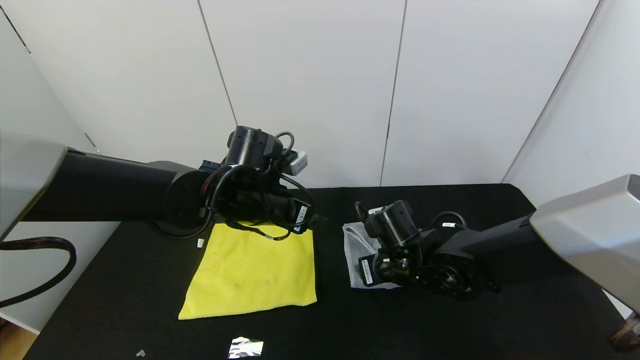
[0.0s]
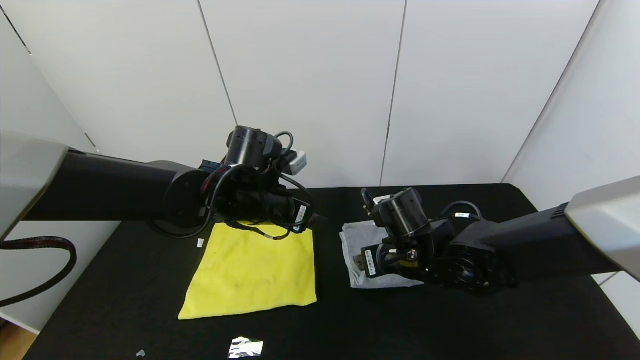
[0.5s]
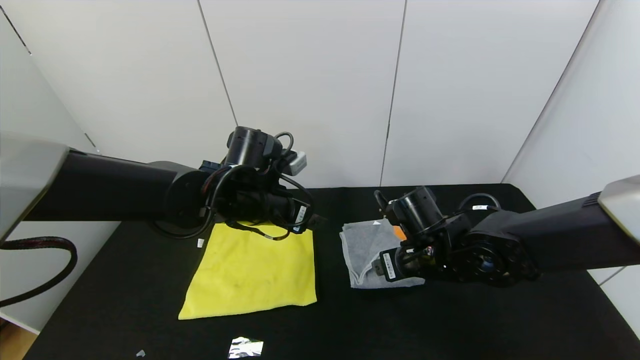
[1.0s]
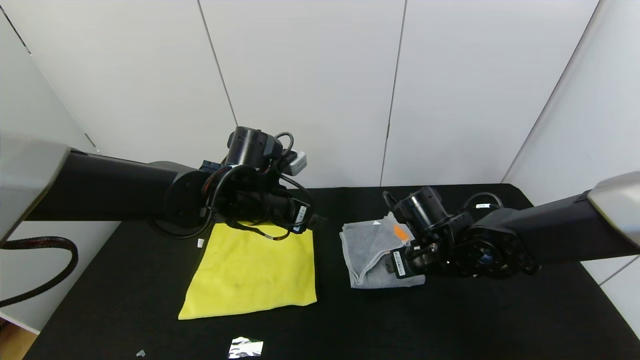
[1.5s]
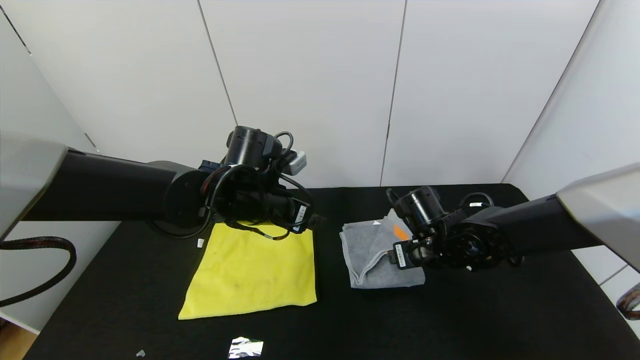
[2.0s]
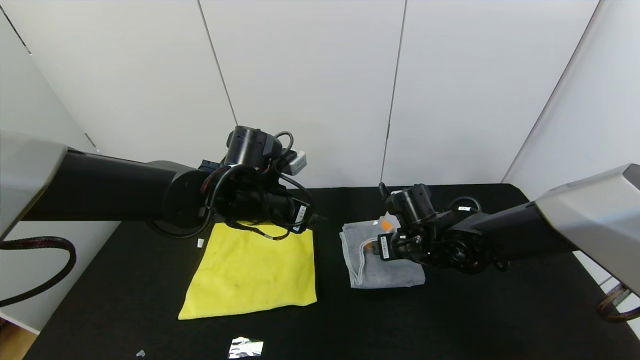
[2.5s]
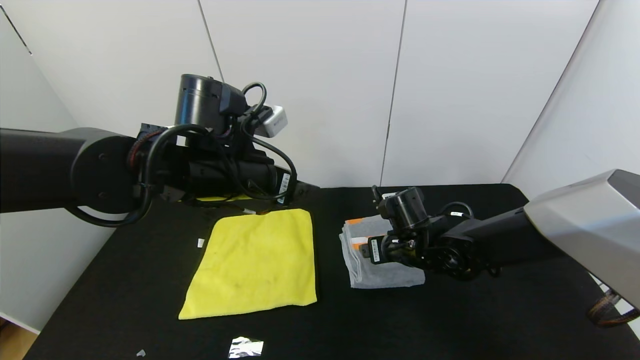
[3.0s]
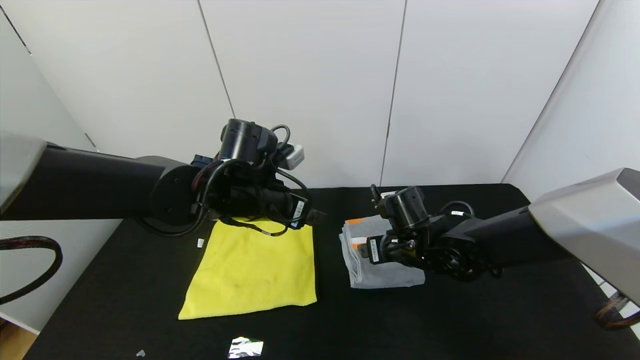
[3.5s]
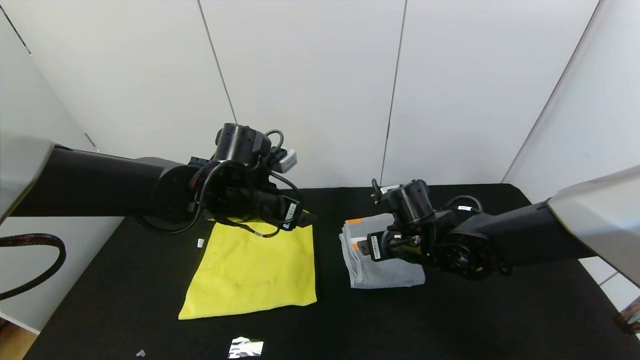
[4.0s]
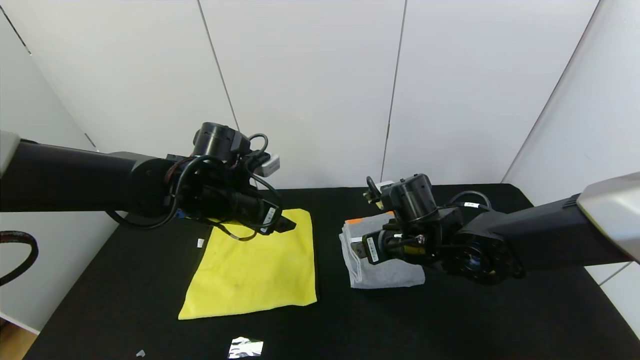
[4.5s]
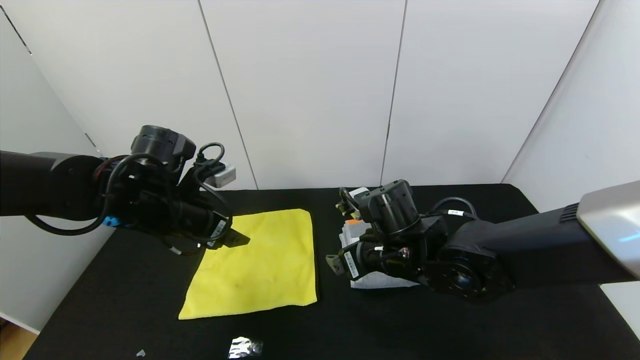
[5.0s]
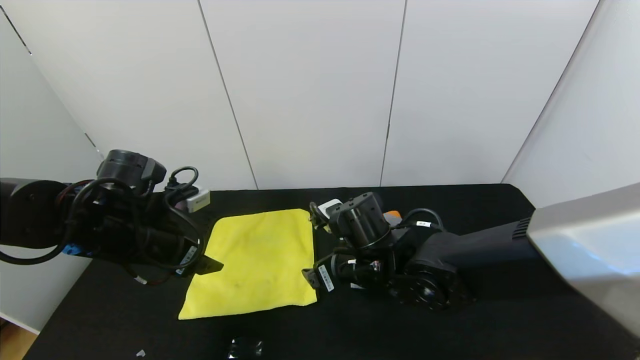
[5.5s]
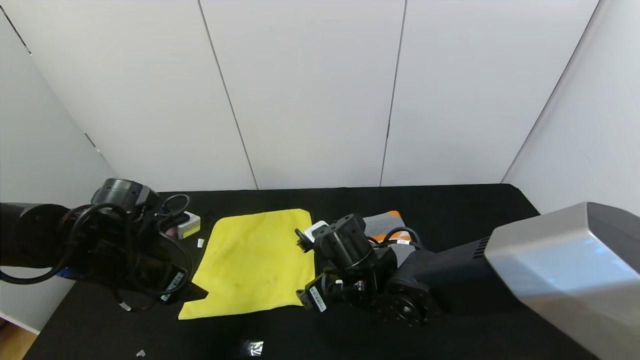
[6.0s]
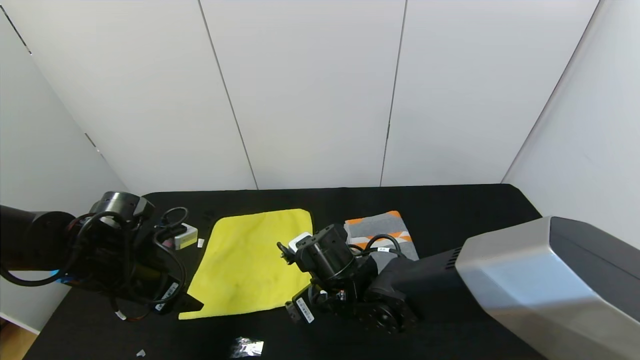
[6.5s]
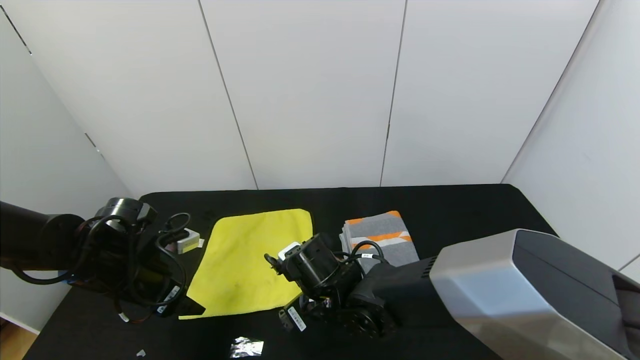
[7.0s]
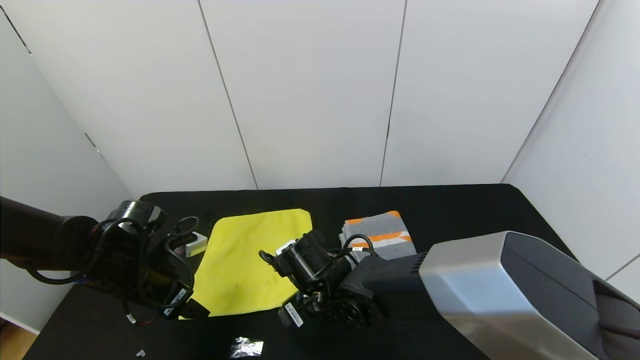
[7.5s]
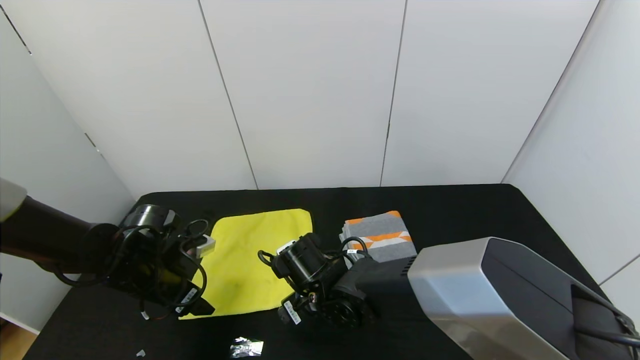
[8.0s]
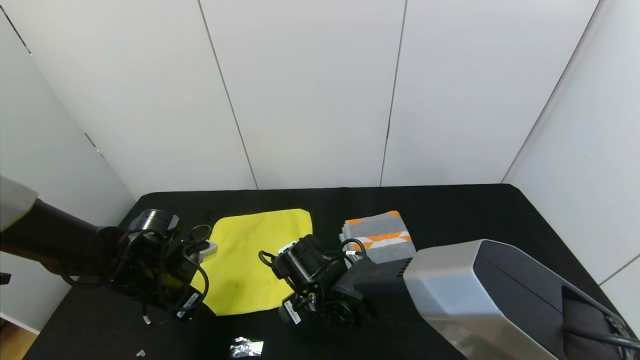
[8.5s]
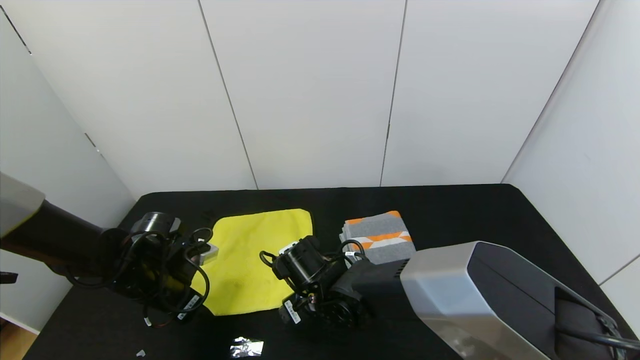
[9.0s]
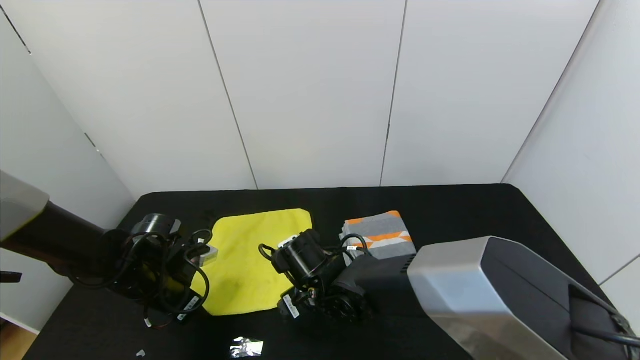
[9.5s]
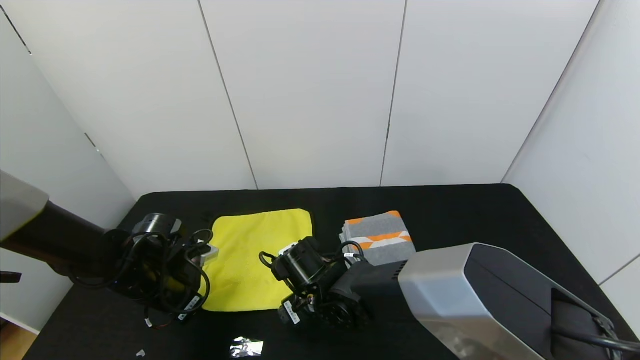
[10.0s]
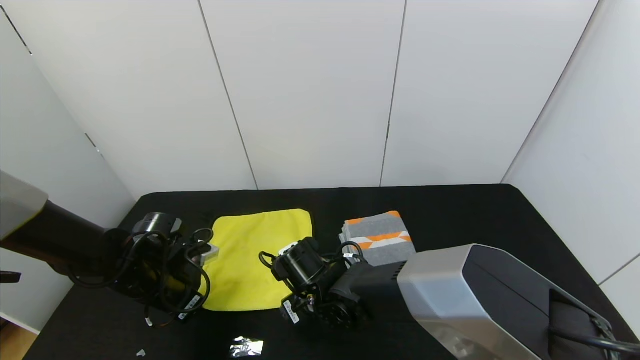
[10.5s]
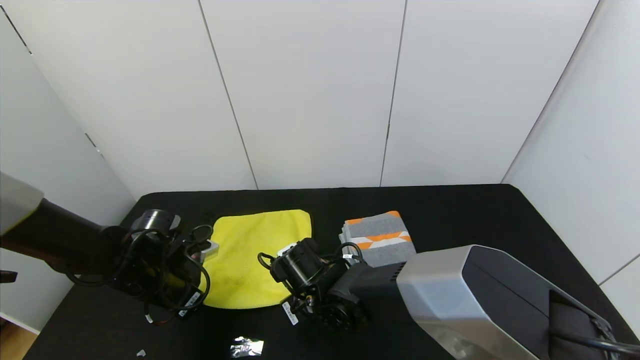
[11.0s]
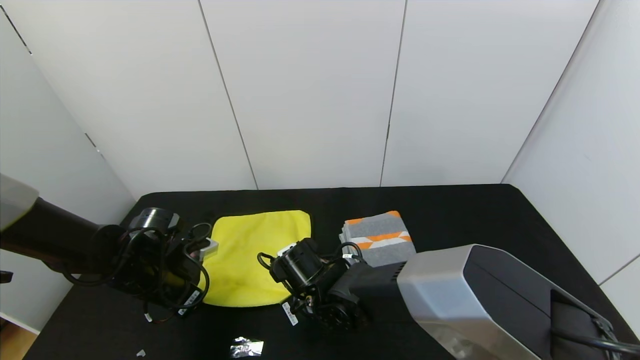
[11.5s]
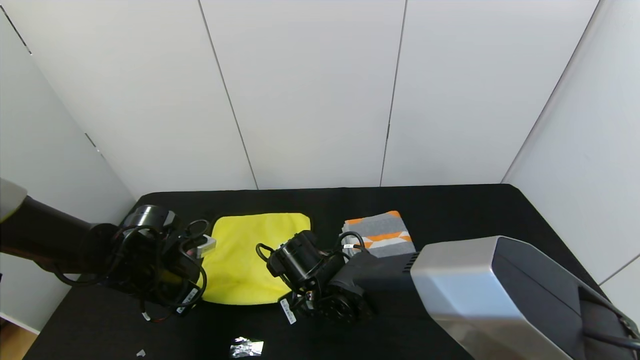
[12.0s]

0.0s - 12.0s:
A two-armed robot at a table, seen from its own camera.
Task of the whole recording: Use the gripper to fold the yellow towel and grey towel in half twice,then put the yellow towel on the grey towel.
Step, 0.5s - 3.0s: Press the gray towel with the right gripper.
0.0s - 2.0s: The right gripper is displaced to the right by about 5 cm.
4.0s - 6.0s: The grippers both shift to the left and backward by some 15 cm.
6.0s - 8.0s: The left gripper heads downward, covering about 5 cm, while the right gripper travels to the left by about 5 cm.
8.0s - 10.0s: The left gripper closes its fingers.
10.0s - 12.0s: The right gripper closes.

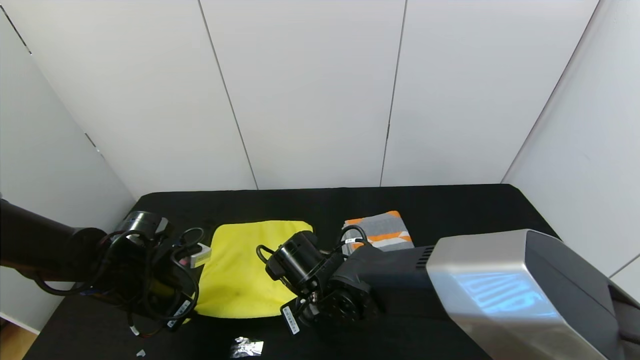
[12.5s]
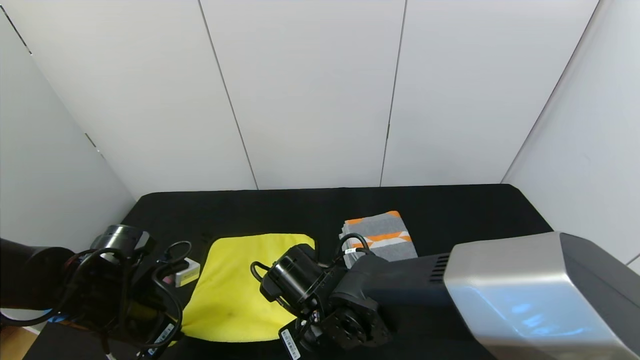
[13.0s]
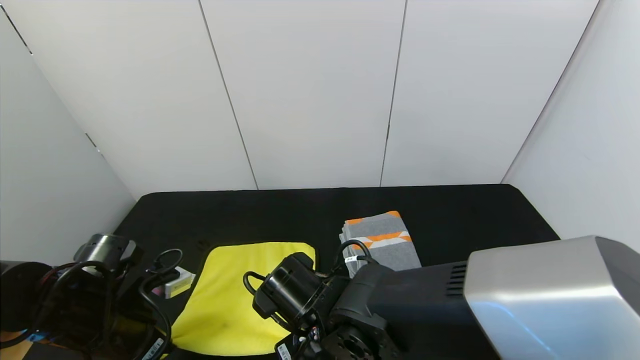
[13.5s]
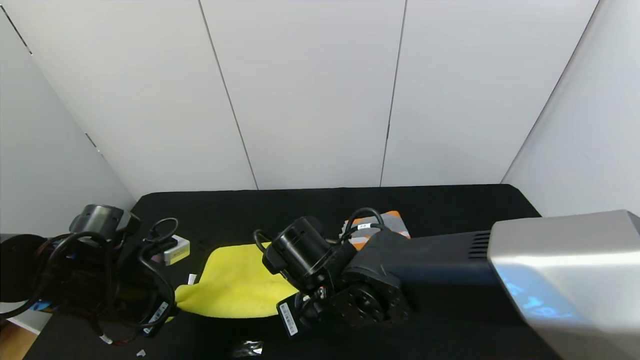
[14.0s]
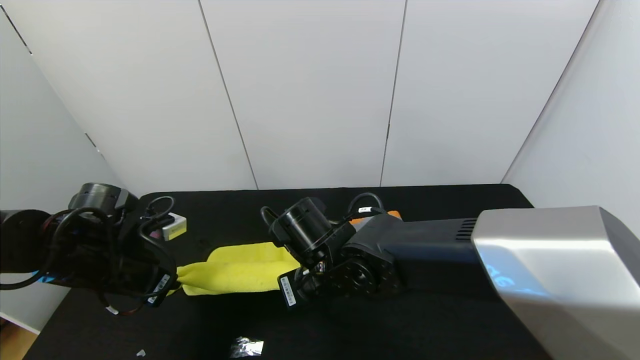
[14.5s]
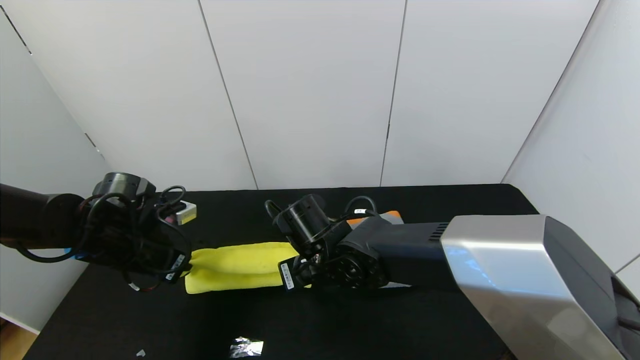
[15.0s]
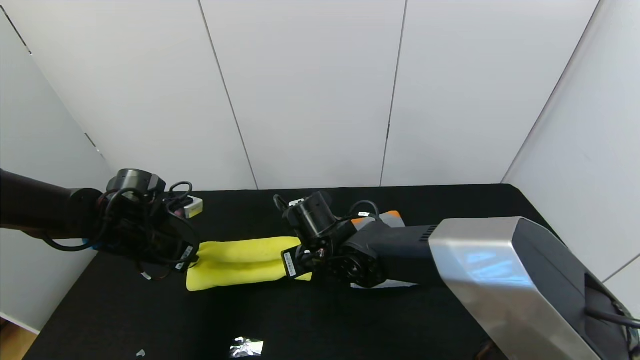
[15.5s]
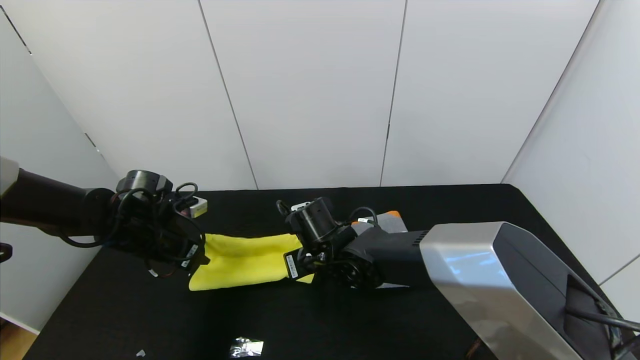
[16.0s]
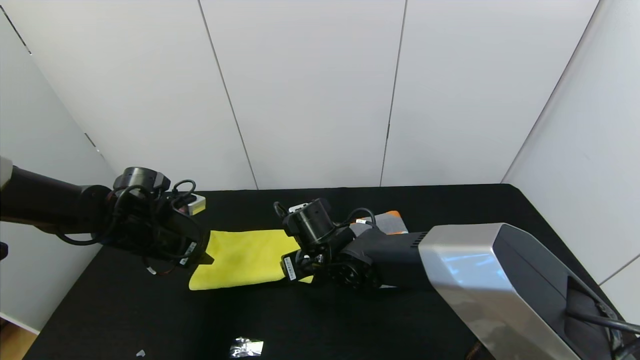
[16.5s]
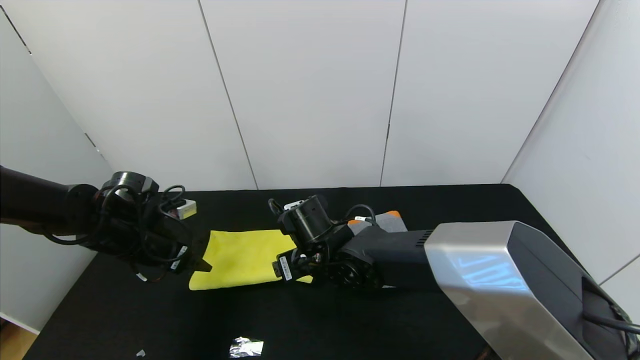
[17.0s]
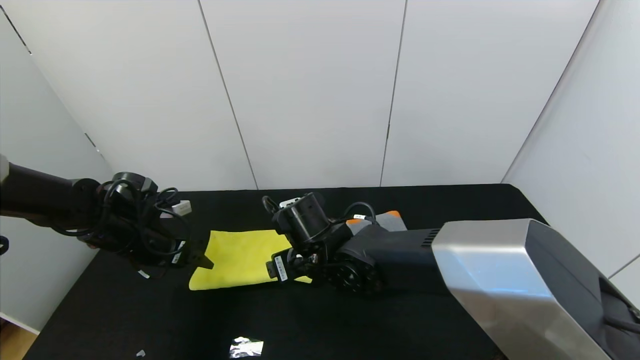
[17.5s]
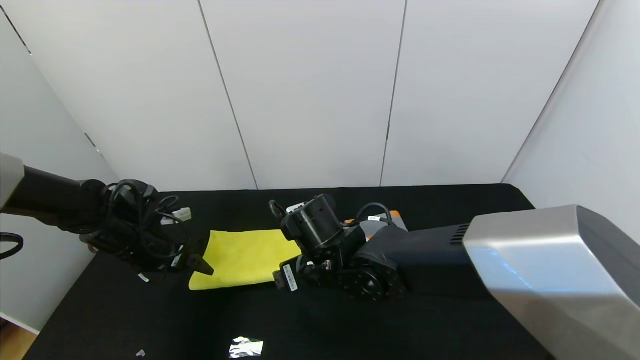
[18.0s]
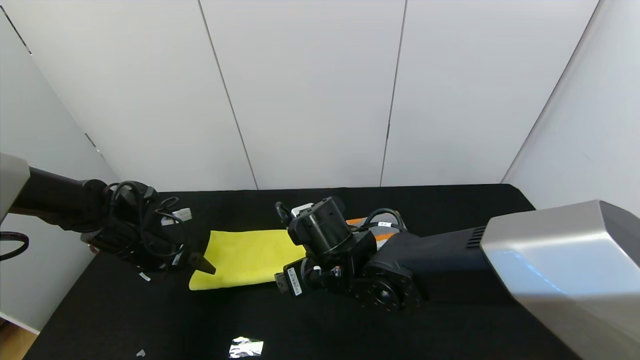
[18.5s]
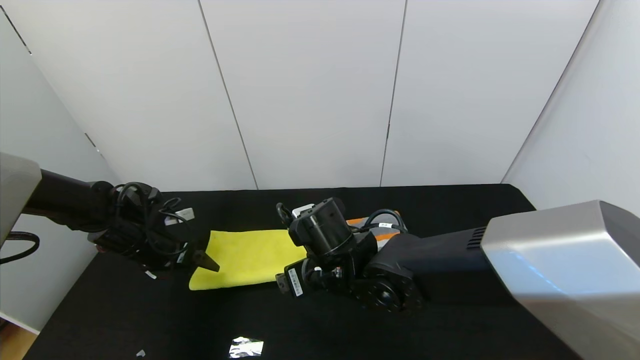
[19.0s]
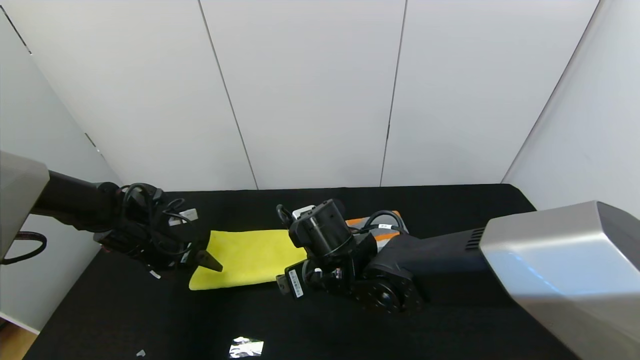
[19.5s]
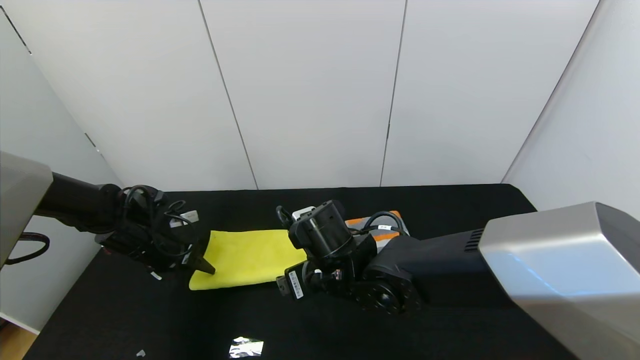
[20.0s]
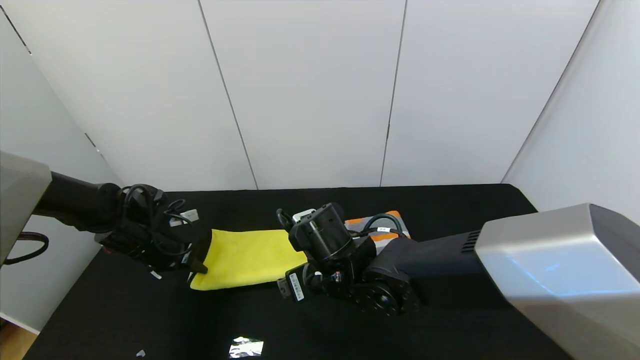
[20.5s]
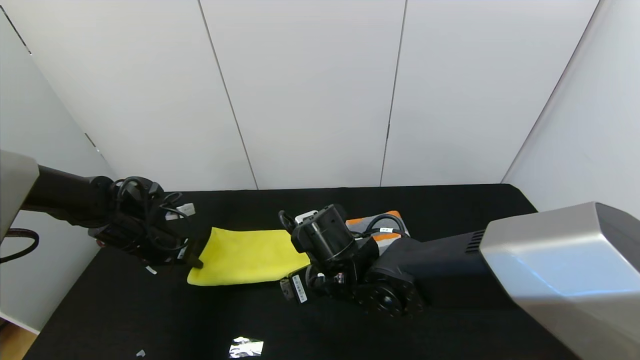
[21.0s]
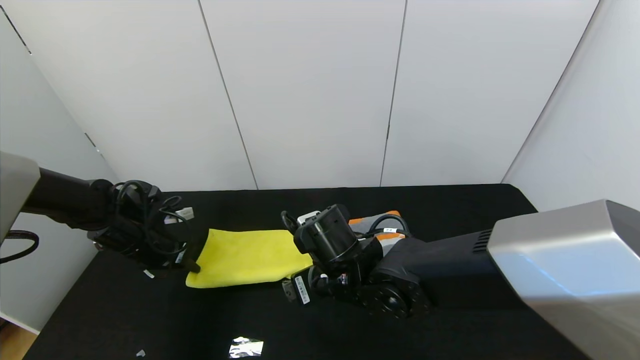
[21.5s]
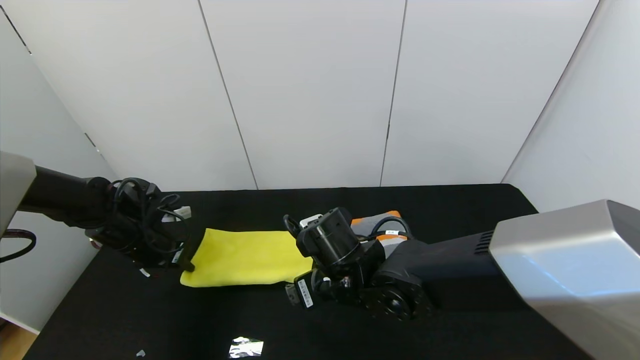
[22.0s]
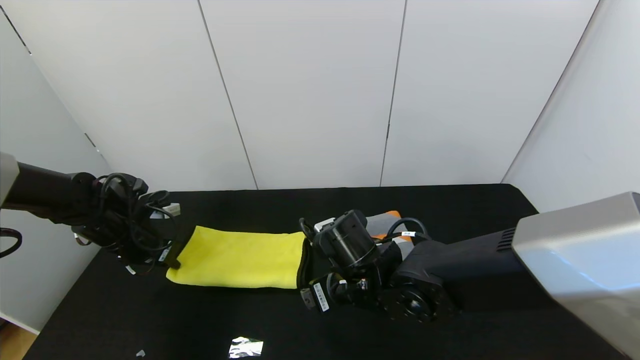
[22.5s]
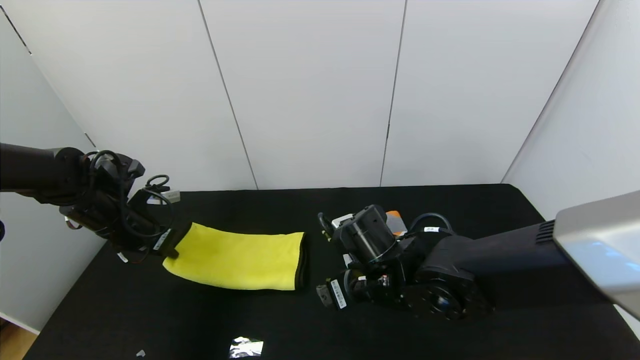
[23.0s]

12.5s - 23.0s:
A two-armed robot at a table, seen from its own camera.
Task of the whole recording: Use the gripper to fold the yellow towel and grey towel in half twice,then put the yellow towel on the grey towel.
Step, 12.5s - 16.0s: Fold the yellow towel upwards with the left gripper.
Step, 12.5s - 16.0s: Fold the yellow towel upwards with the right gripper.
12.5s - 14.5s: The grippers both shift upward by roughly 5 cm.
14.5s - 16.5s: Both grippers travel together forward, approximately 5 cm. The right gripper opens its fingers. The left gripper opens up.
16.5s - 19.0s: The left gripper changes place by roughly 5 cm, while the right gripper is displaced backward by roughly 5 cm.
19.0s - 21.0s: The left gripper closes its fingers.
21.0s - 23.0s: The left gripper is displaced upward by about 5 cm. The right gripper goes about 5 cm to the right.
